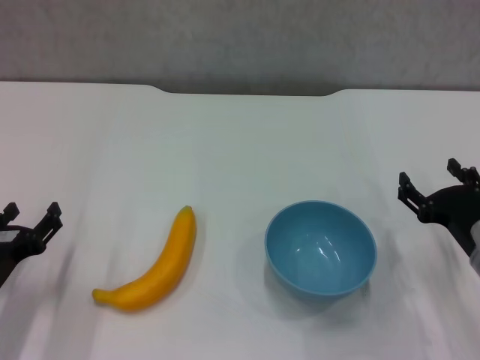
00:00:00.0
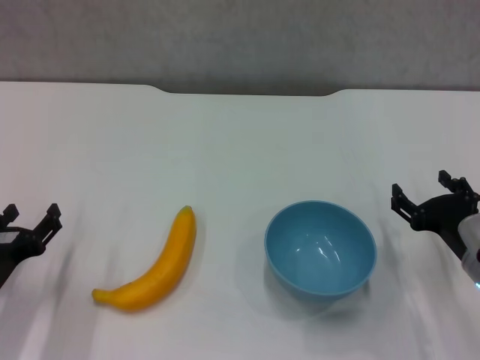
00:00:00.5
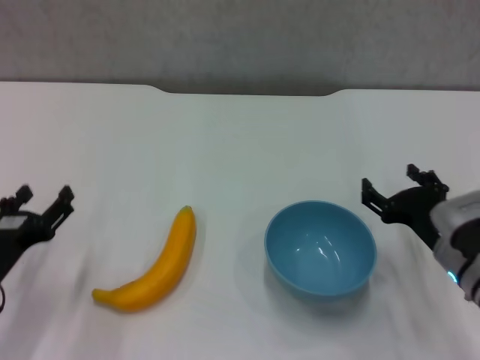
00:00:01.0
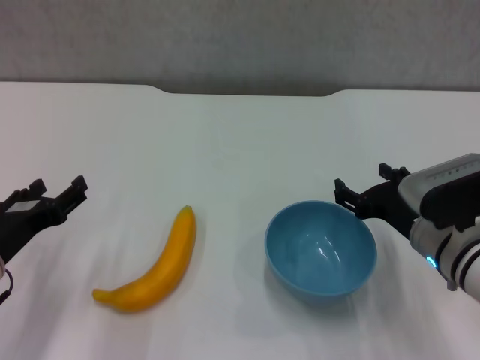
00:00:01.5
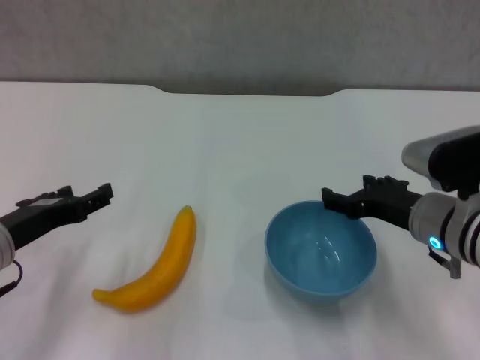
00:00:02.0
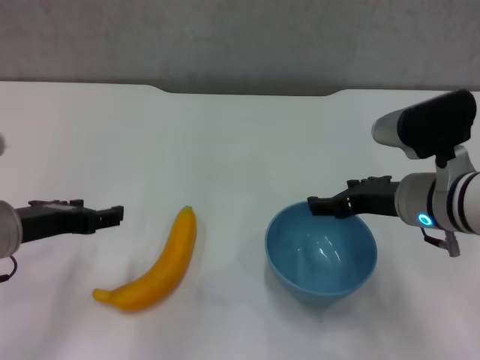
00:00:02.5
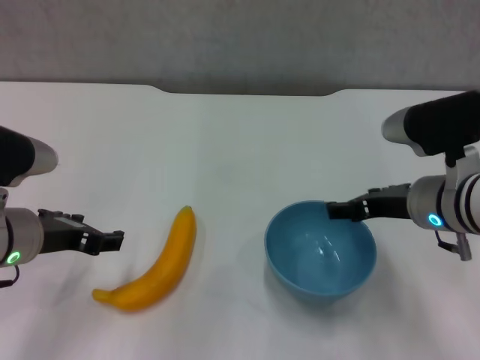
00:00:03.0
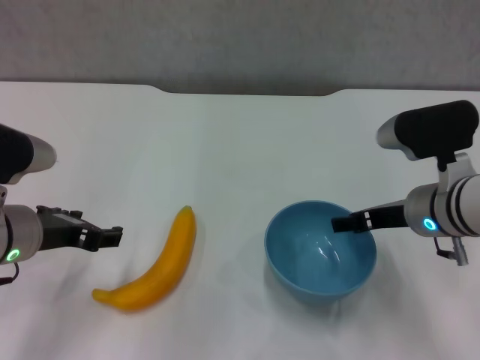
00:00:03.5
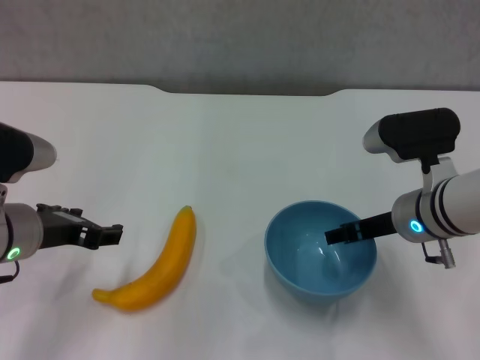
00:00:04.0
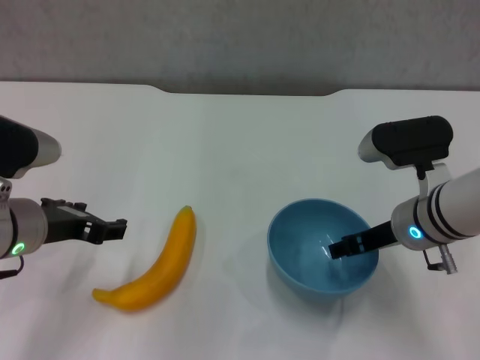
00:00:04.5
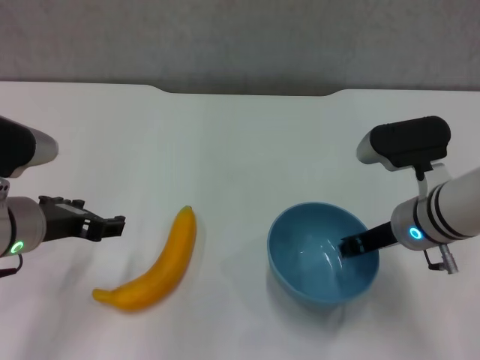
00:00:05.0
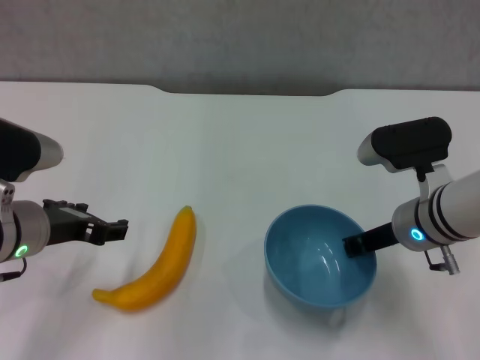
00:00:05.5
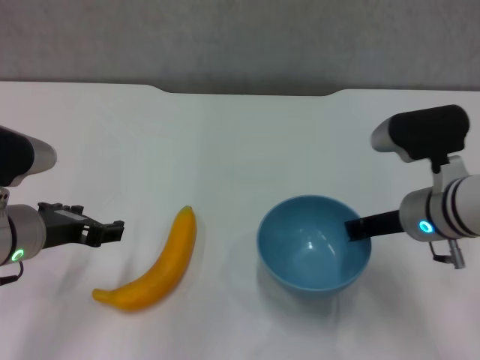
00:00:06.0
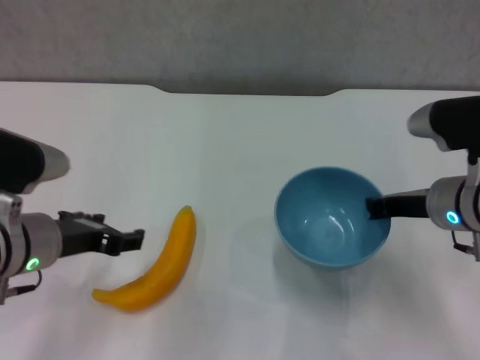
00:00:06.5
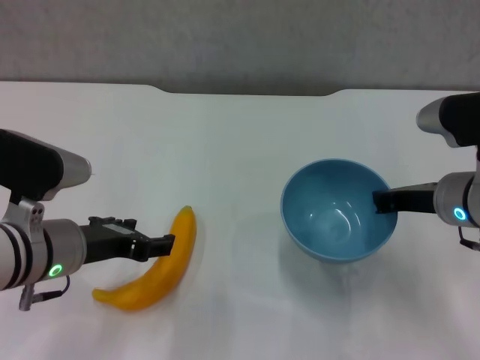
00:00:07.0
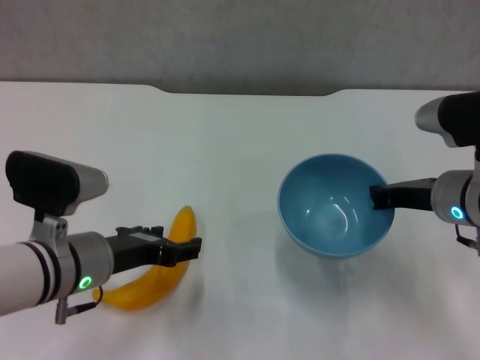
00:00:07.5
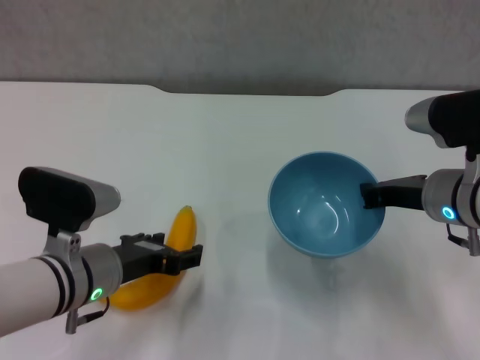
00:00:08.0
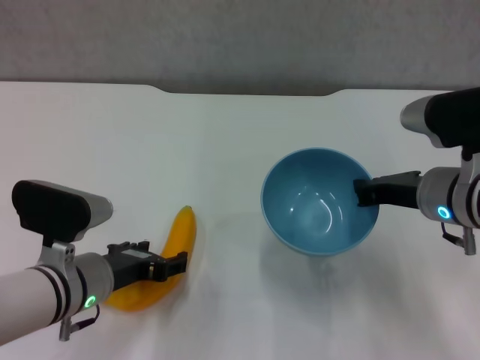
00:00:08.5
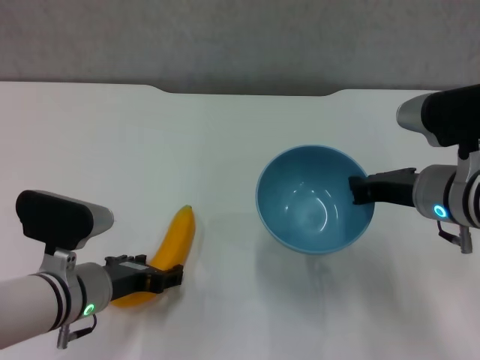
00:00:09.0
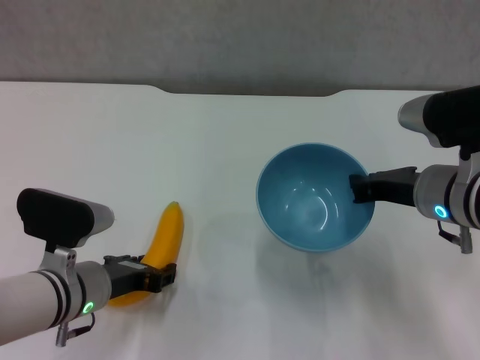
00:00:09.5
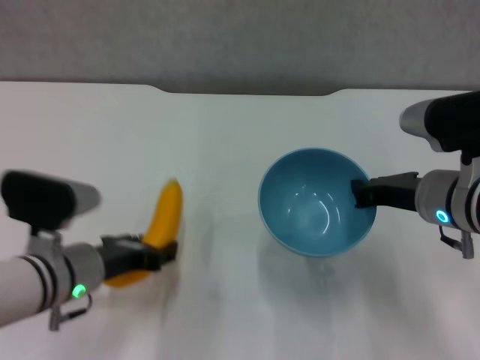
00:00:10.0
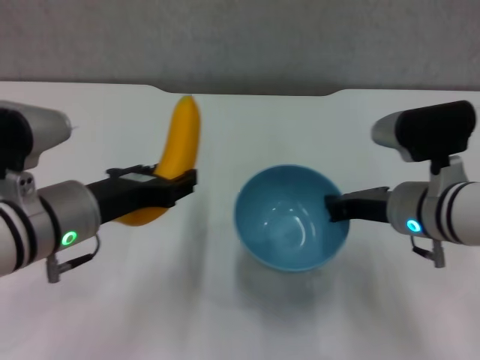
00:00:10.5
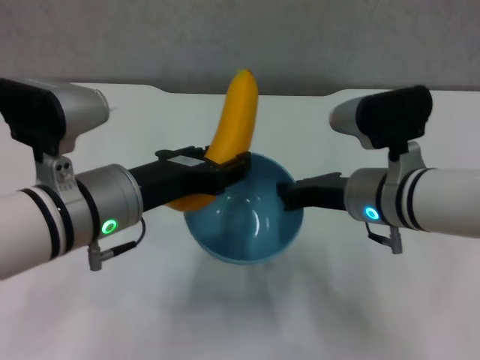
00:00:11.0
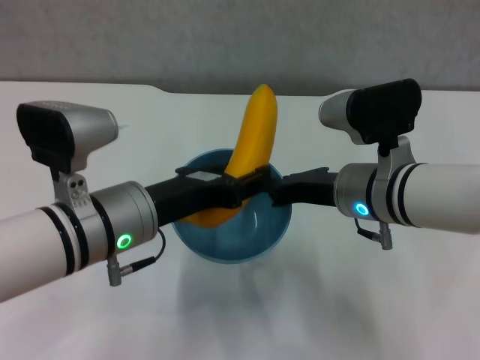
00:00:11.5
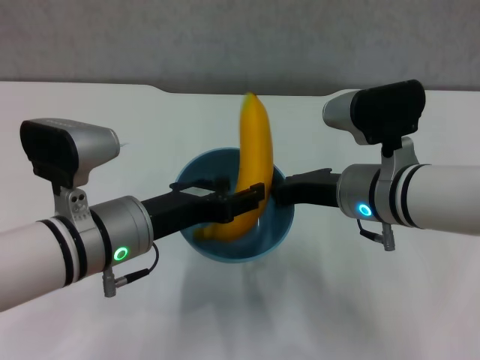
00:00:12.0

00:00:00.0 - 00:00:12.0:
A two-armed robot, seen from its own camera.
Step, 00:00:00.0 - 00:00:05.0: Grasp the blue bowl with right gripper.
Step, 00:00:06.0 - 00:00:06.5: Lift the blue bowl with right gripper.
Step, 00:00:07.0 - 00:00:09.5: Grasp the banana with left gripper.
00:00:00.0 - 00:00:02.0: The right gripper travels upward and to the left by roughly 10 cm; the left gripper is displaced upward by about 10 cm.
00:00:04.0 - 00:00:06.0: The right gripper closes its fingers.
00:00:06.0 - 00:00:08.0: The left gripper is displaced to the right and downward by approximately 10 cm.
00:00:08.0 - 00:00:10.0: The left gripper closes.
00:00:10.0 - 00:00:12.0: The right gripper moves to the left, roughly 5 cm. Meanwhile the left gripper moves upward, about 5 cm.

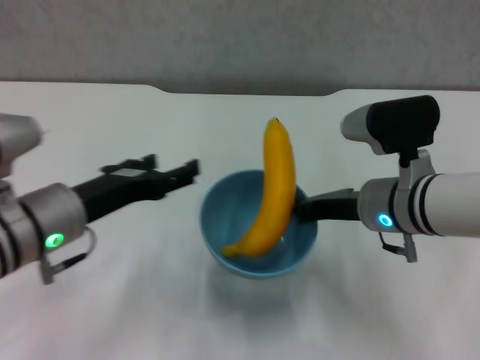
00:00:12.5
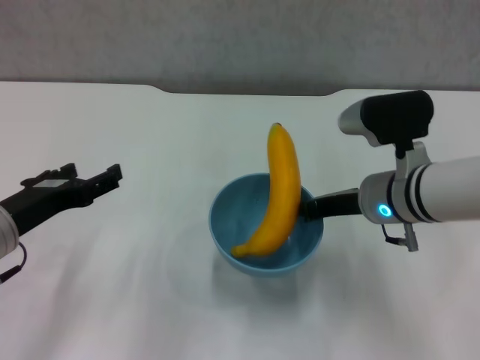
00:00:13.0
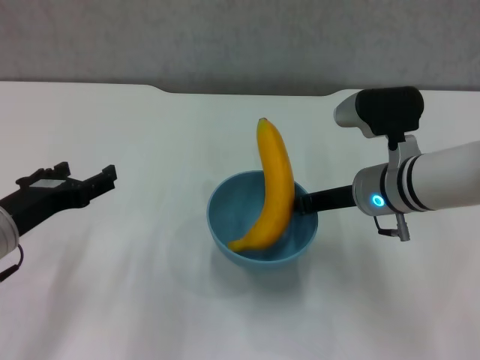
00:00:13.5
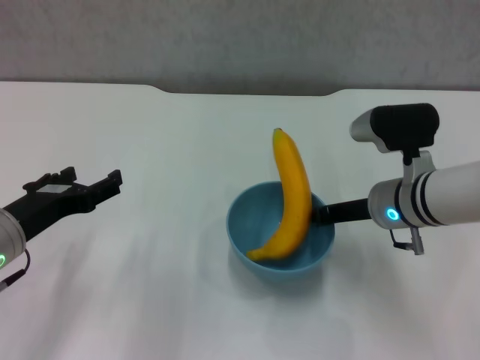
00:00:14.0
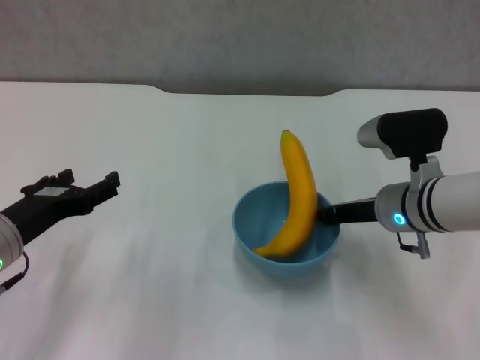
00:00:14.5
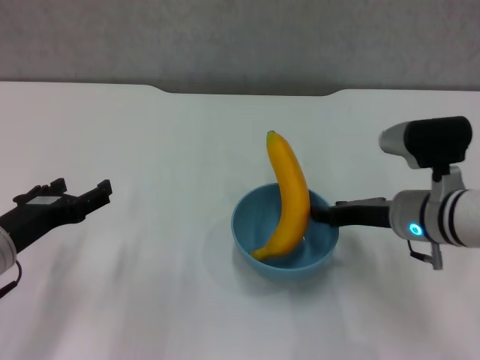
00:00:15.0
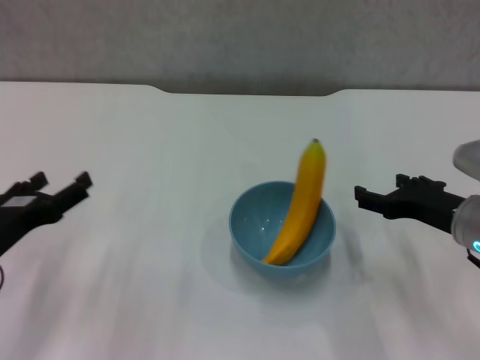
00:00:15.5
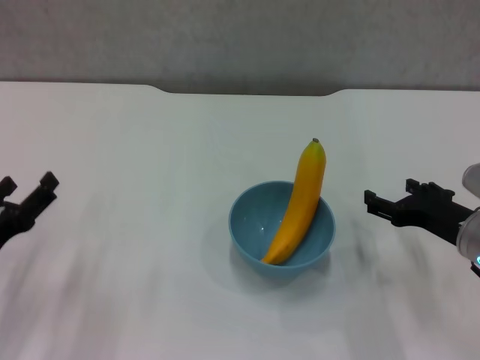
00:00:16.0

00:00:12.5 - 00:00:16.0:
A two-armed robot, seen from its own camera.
Step, 00:00:12.5 - 00:00:15.0: Place the bowl on the table with right gripper.
00:00:12.5 - 00:00:14.5: The left gripper heads to the left, covering roughly 5 cm, while the right gripper ends up roughly 5 cm from where it was.
00:00:14.5 - 00:00:16.0: The left gripper is displaced downward by some 5 cm; the right gripper travels to the right and backward by some 10 cm, and opens its fingers.
